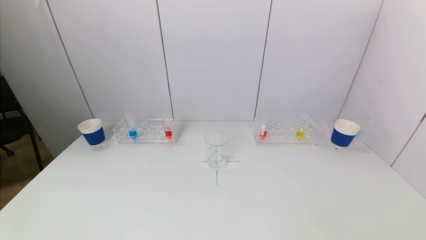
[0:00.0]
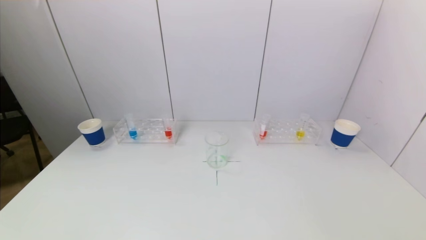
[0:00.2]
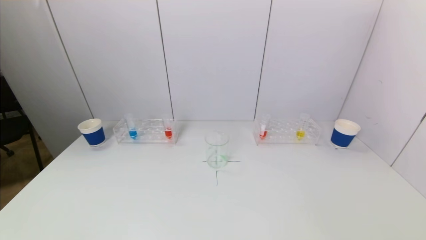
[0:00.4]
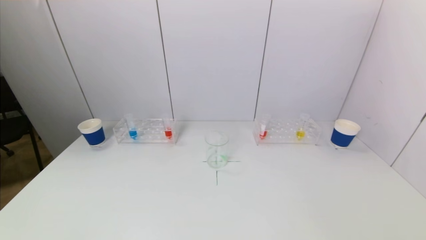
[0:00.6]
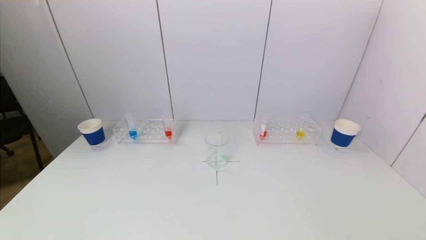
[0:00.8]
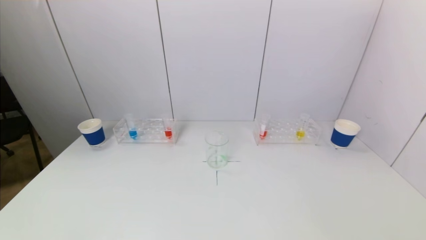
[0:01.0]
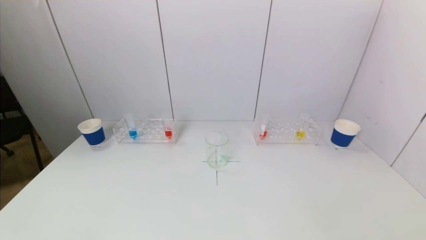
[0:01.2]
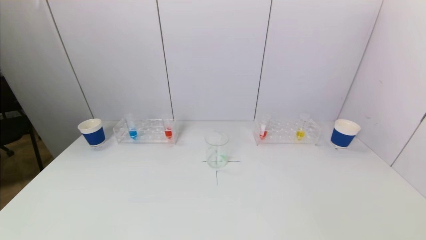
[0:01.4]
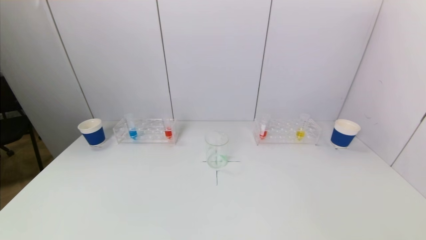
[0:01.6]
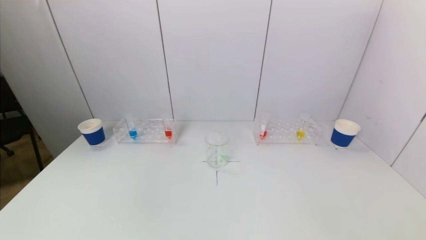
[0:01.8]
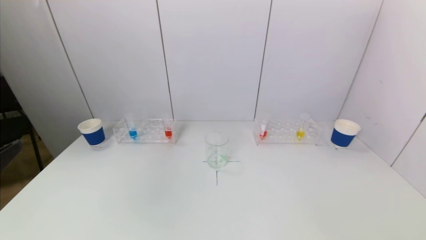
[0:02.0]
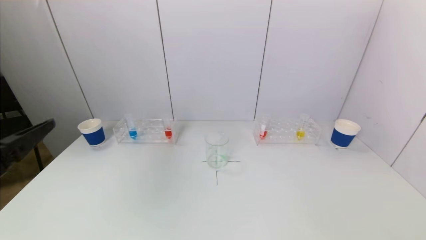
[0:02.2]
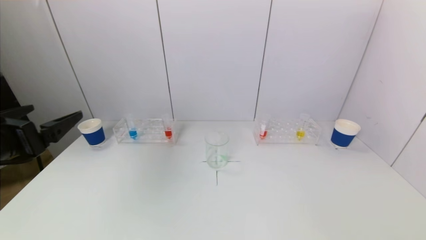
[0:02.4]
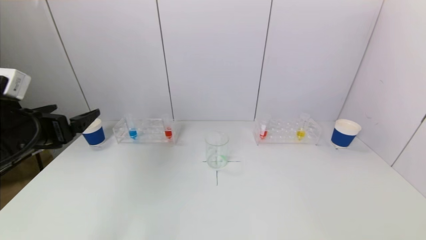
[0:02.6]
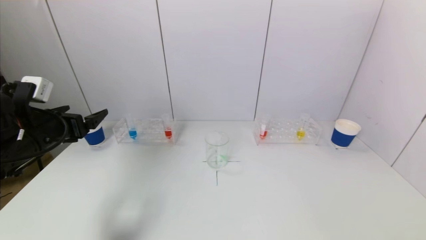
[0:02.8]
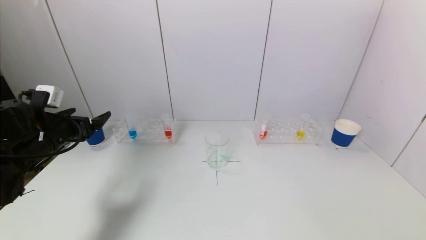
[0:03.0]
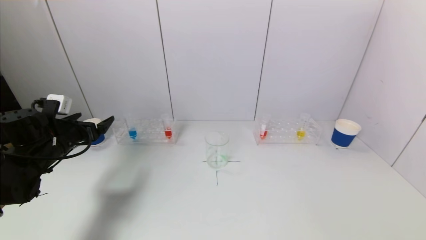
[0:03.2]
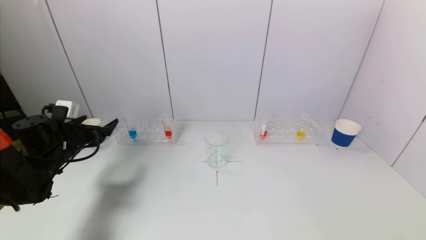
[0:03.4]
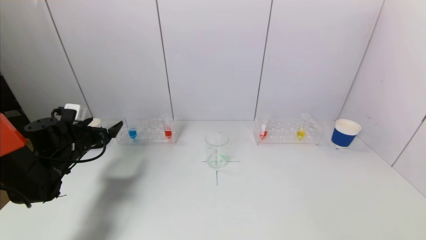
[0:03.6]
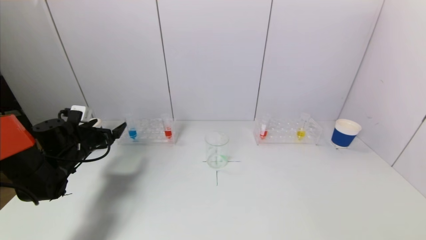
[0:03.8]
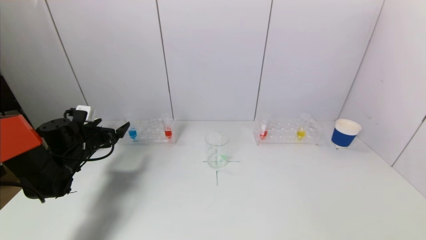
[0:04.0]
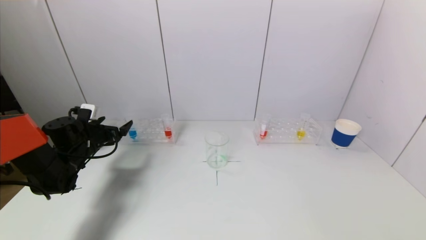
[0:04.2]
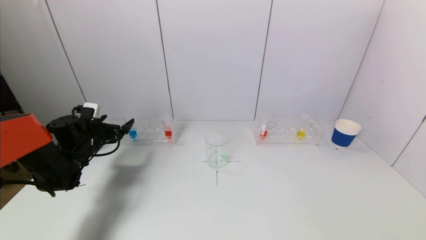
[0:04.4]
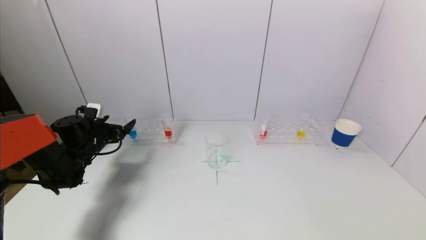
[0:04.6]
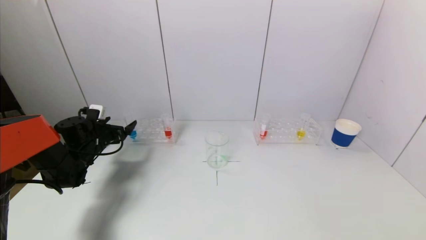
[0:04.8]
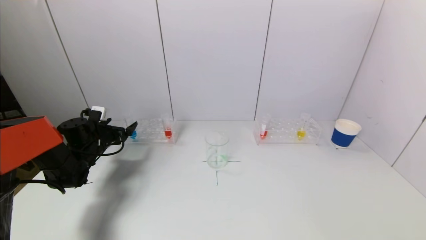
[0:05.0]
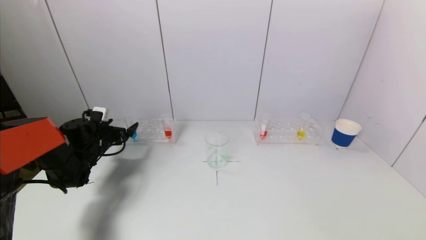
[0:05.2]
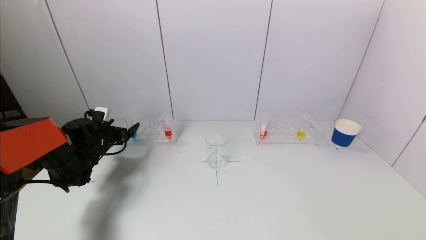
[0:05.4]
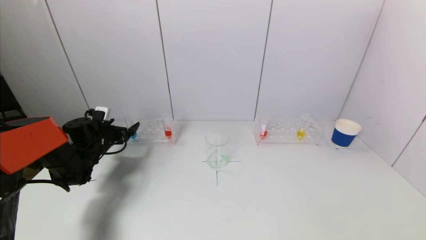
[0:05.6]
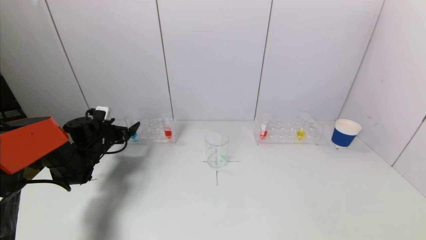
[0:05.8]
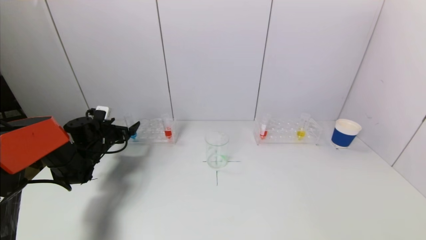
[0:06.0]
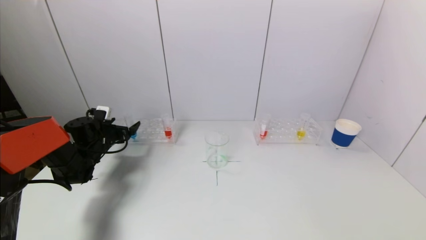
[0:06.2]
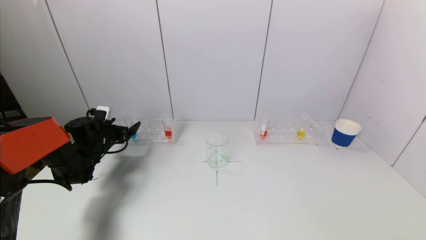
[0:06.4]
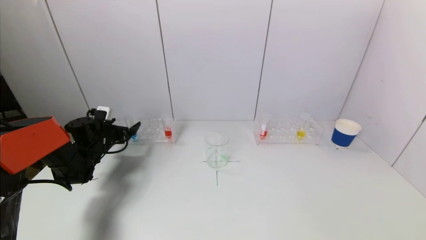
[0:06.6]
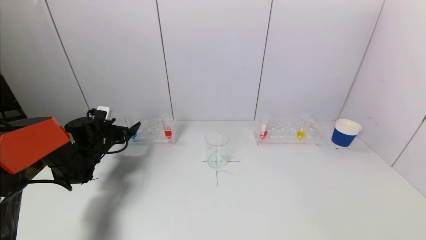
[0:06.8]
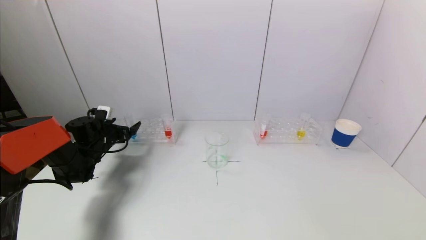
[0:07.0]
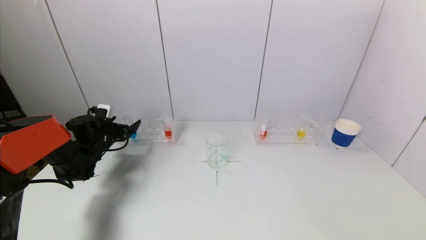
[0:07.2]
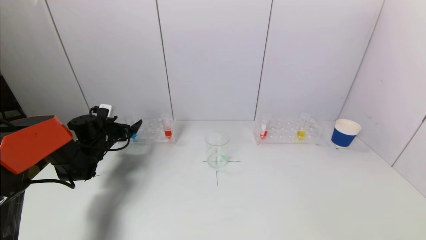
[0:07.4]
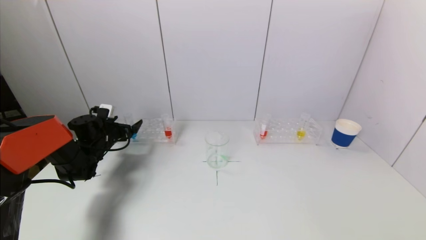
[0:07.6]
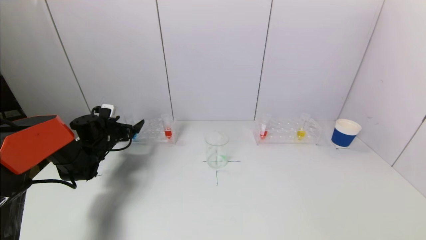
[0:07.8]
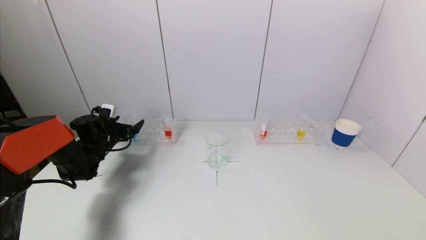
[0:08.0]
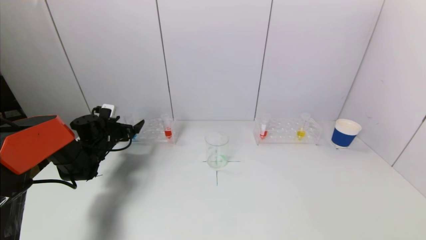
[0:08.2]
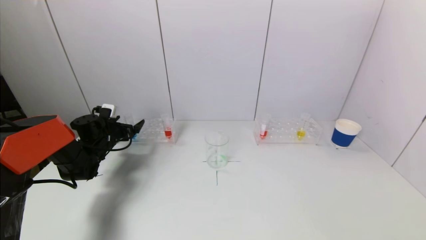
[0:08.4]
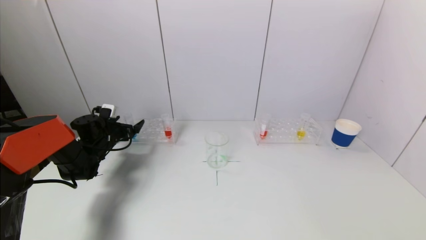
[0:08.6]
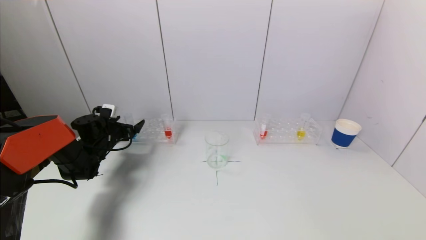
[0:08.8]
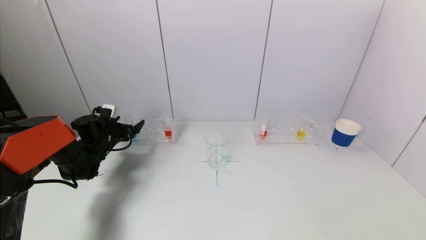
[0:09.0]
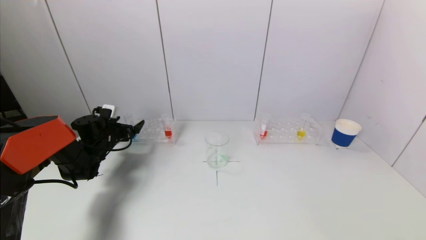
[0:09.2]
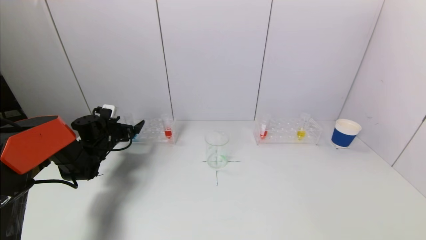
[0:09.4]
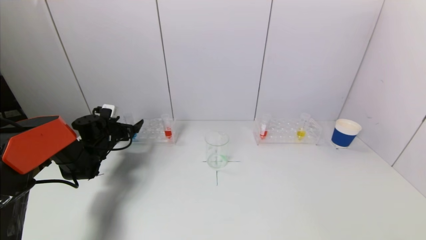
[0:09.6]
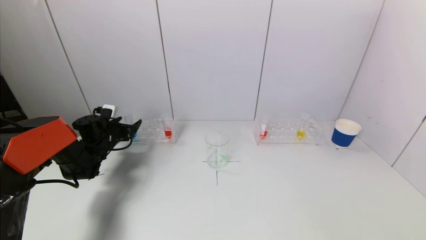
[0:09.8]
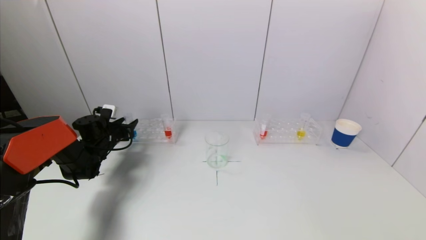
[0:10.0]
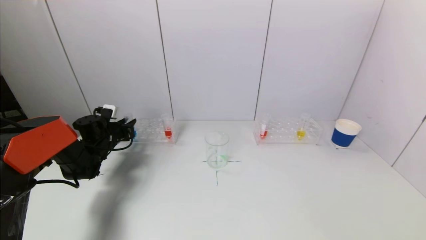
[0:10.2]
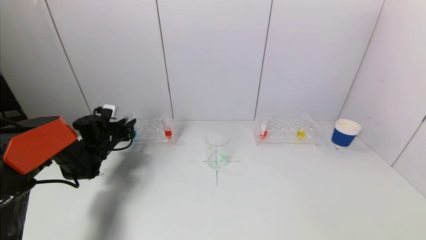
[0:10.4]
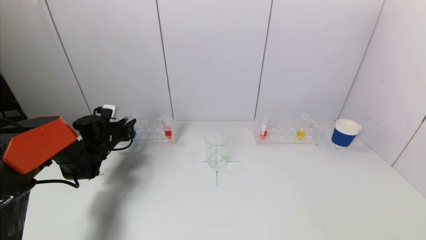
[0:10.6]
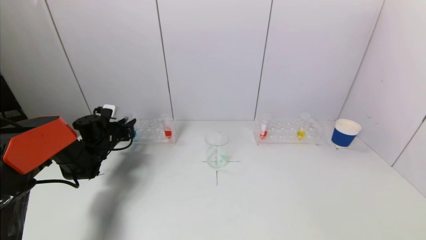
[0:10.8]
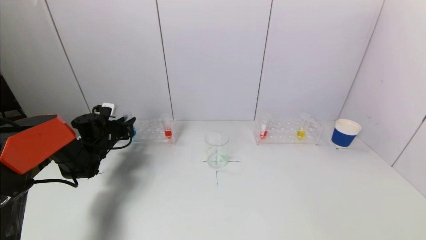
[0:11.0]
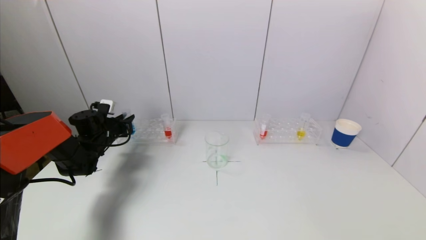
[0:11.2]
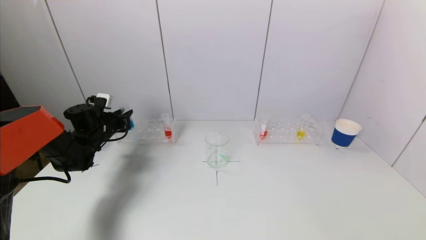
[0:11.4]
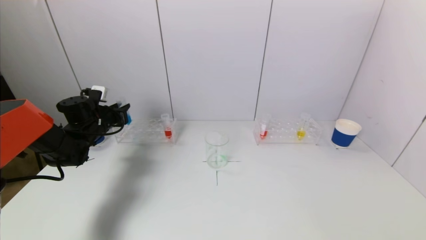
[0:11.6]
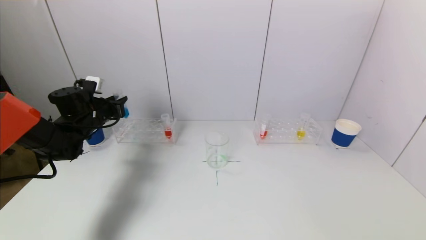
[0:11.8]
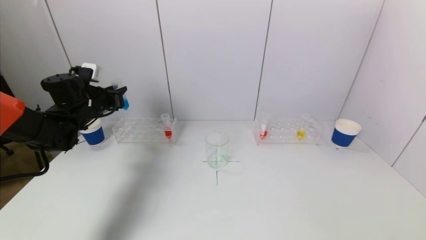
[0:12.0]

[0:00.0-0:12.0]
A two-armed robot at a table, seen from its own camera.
Task of the whole recording: pick up a test tube with pigment on left test tube rack and a test tube with pigment on right test tube rack by grippers and pour them into the beaker.
Step, 0:00.0 to 0:10.2: Grasp the blue reagent with the left gripper.
0:01.6 to 0:03.0: The left gripper heads forward, covering some 30 cm.
0:03.0 to 0:04.4: The left gripper moves forward and downward, some 15 cm.
0:04.4 to 0:06.0: The grippers stay close to where they were, moving slightly.
0:06.0 to 0:07.6: Both grippers stay about where they are.
0:07.6 to 0:09.0: Neither gripper changes place.
0:09.0 to 0:10.4: The left gripper closes.
0:10.4 to 0:12.0: The left gripper is displaced upward by roughly 15 cm.

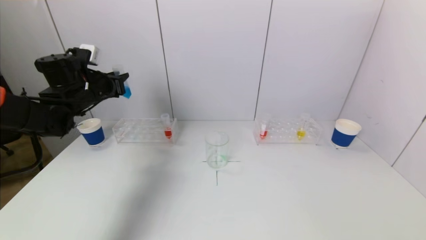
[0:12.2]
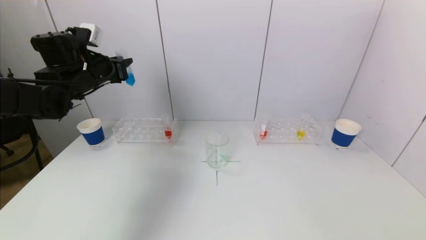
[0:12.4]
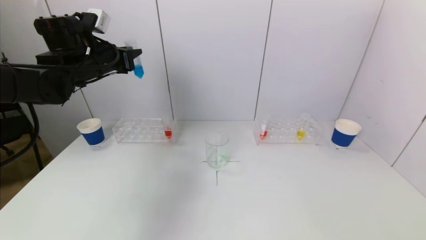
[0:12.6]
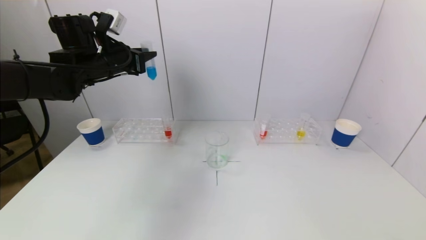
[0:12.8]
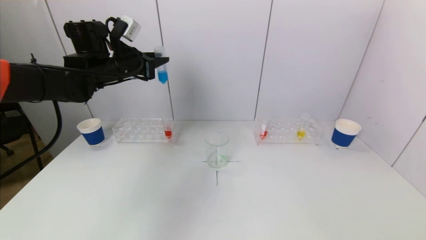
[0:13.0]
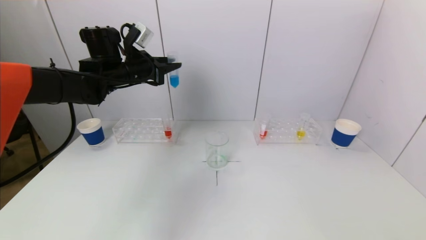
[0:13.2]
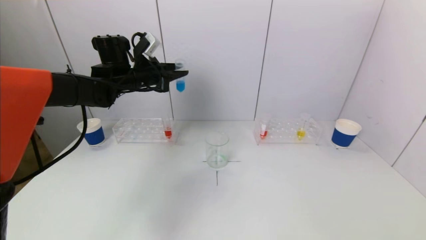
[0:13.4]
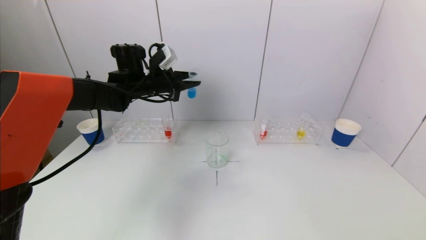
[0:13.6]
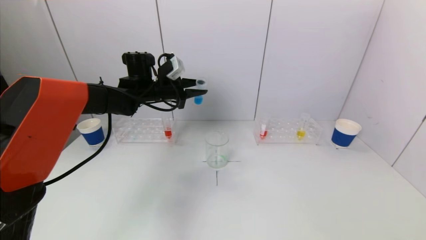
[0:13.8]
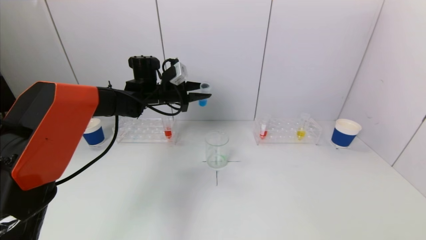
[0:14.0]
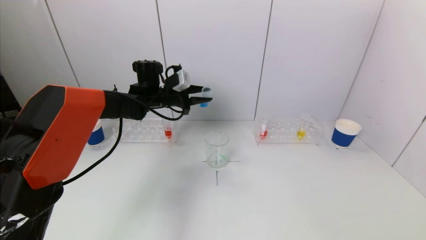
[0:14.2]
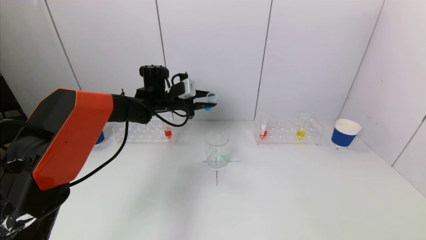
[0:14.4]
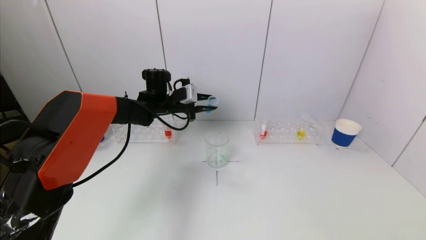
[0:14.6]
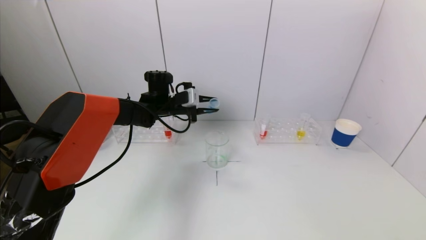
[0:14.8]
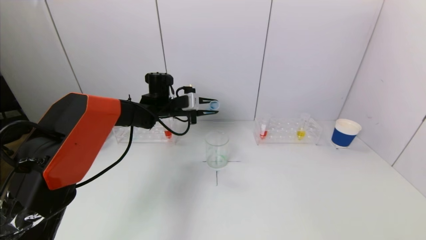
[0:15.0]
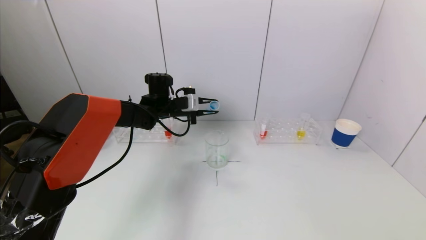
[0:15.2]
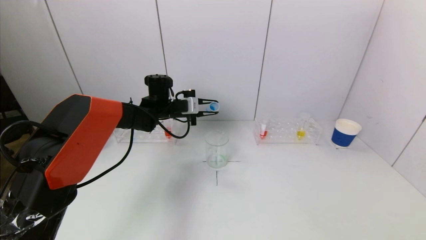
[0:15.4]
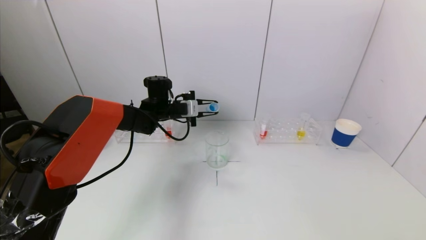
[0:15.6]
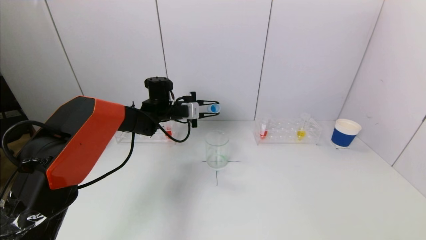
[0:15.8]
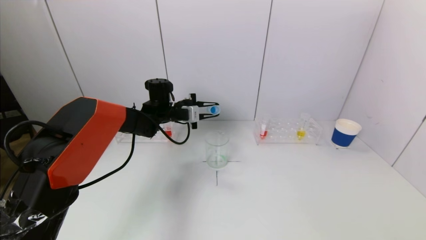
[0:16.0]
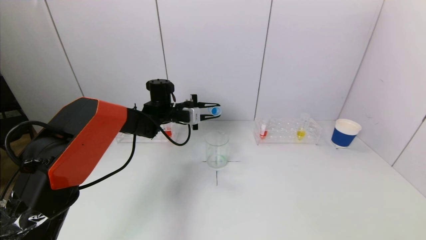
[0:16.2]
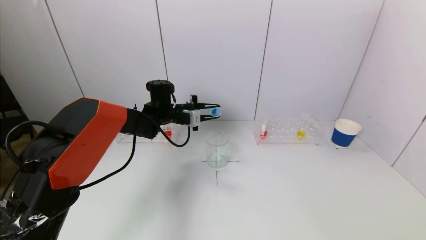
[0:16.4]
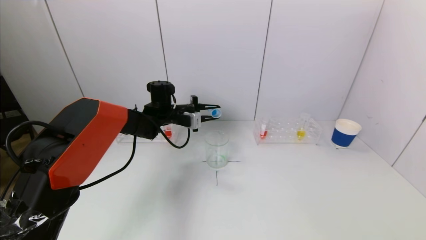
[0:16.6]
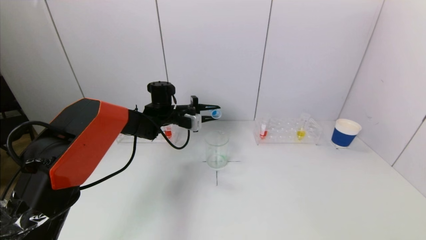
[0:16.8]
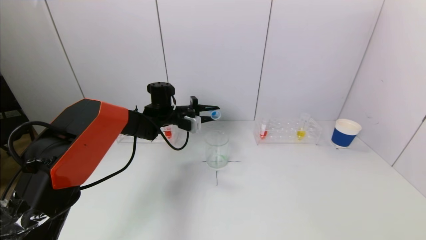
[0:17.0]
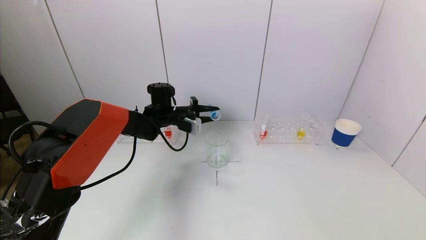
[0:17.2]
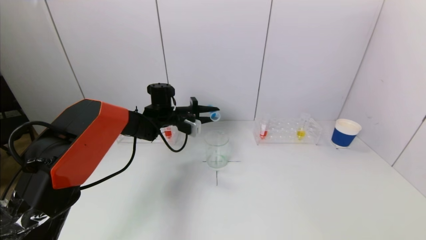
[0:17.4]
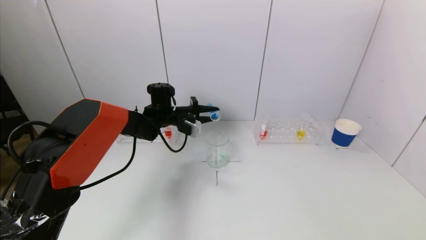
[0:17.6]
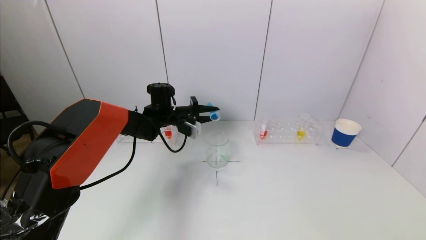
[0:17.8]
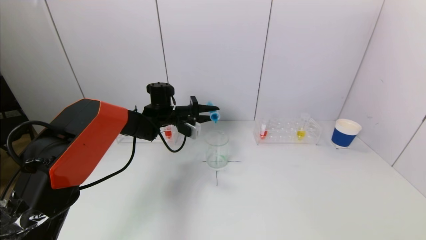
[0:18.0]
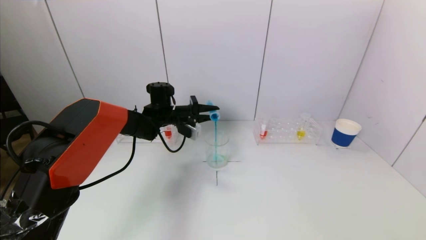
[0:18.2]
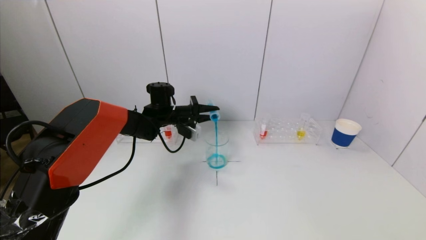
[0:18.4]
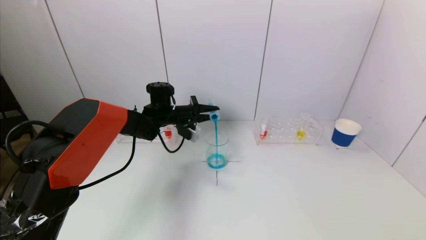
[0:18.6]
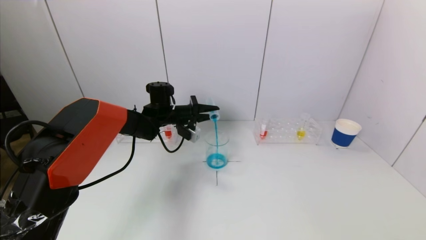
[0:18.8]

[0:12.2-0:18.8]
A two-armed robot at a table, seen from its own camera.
Task of the whole recording: pick up a test tube with pigment on left test tube rack and a test tube with pigment on right test tube rack by grippers and pour them into the beaker.
0:12.2 to 0:13.8: The left gripper travels to the right by some 15 cm.
0:13.8 to 0:15.4: The left gripper shifts some 5 cm downward.
